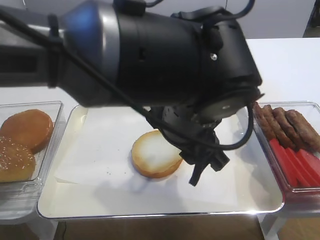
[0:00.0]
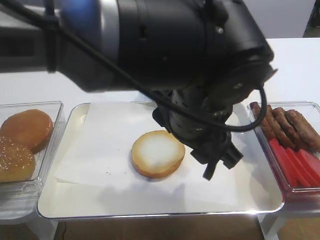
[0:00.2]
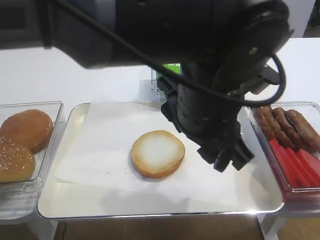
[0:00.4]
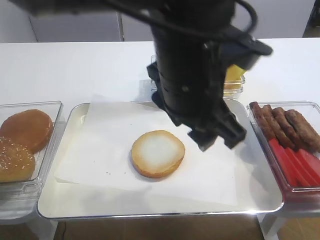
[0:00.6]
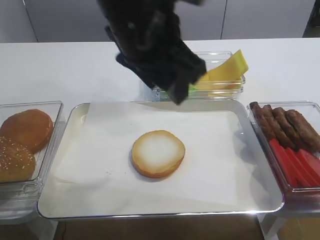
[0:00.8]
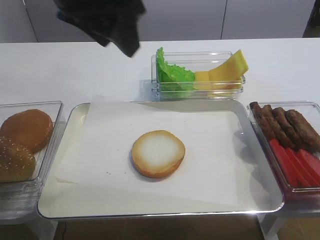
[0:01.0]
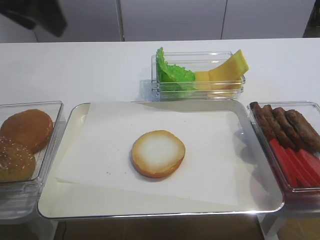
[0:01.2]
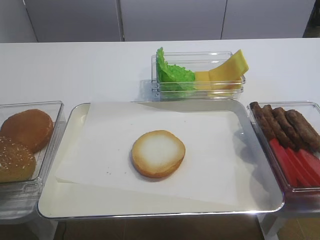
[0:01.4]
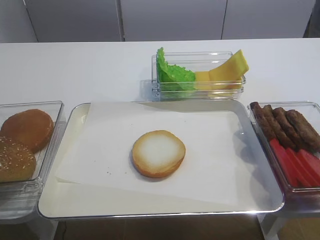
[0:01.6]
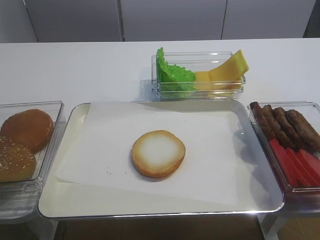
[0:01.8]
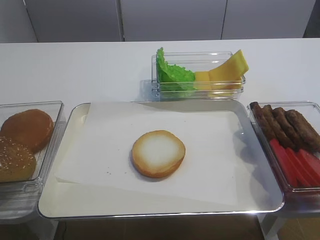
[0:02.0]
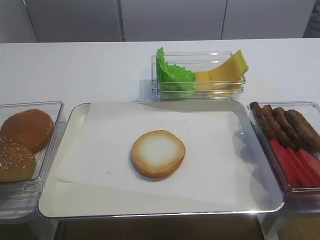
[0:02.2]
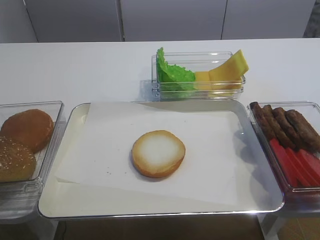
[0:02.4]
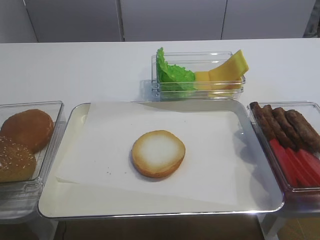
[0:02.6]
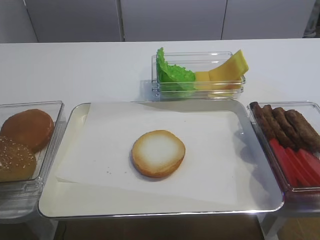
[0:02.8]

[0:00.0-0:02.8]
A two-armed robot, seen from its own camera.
0:00.0 to 0:01.4: The left gripper is displaced to the left by some 35 cm.
0:01.4 to 0:02.8: The left gripper goes some 15 cm downward and backward.

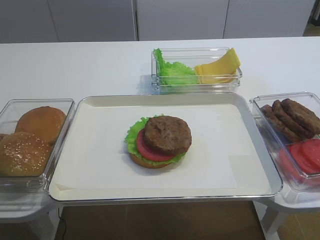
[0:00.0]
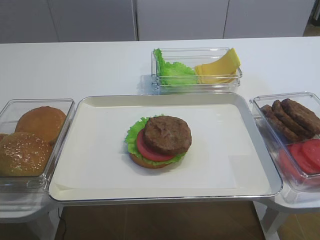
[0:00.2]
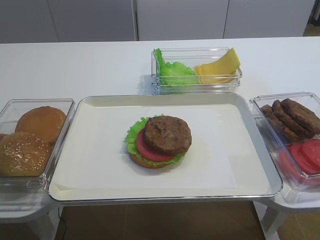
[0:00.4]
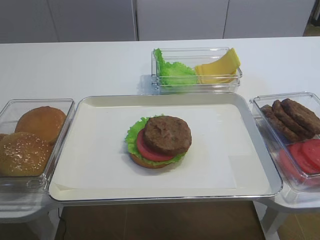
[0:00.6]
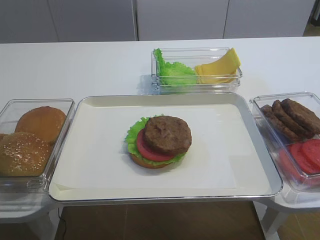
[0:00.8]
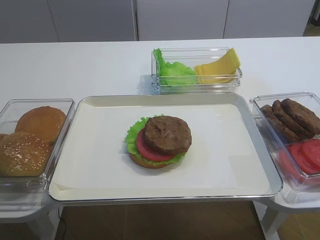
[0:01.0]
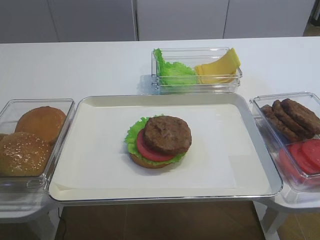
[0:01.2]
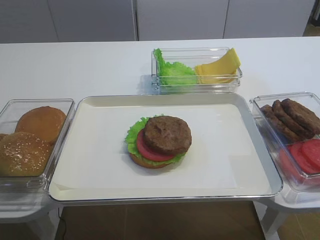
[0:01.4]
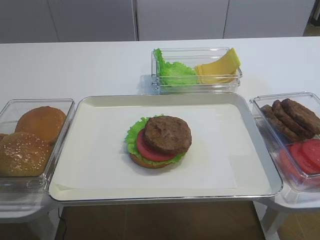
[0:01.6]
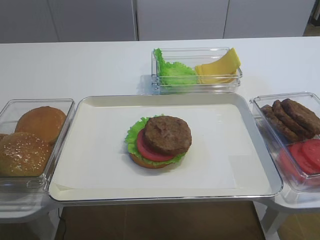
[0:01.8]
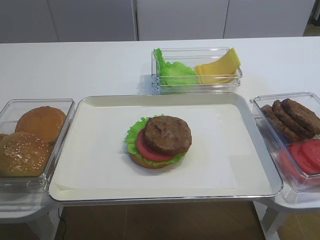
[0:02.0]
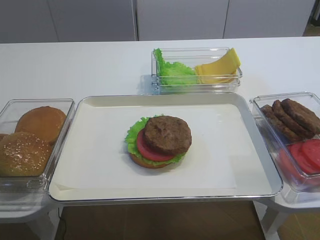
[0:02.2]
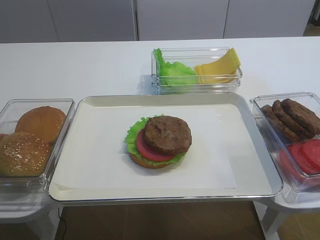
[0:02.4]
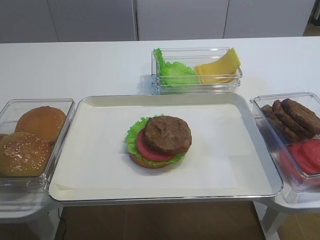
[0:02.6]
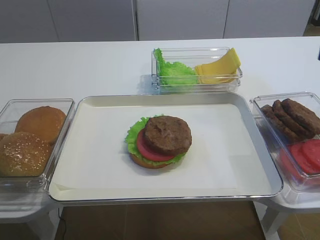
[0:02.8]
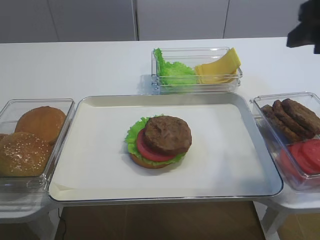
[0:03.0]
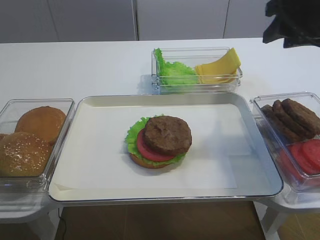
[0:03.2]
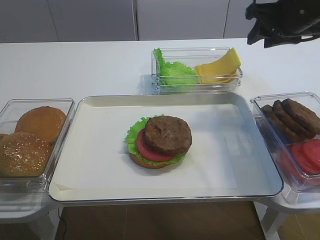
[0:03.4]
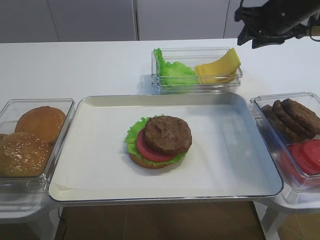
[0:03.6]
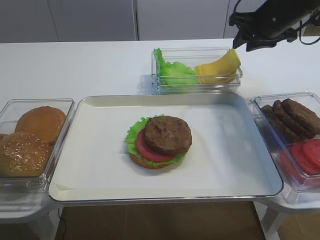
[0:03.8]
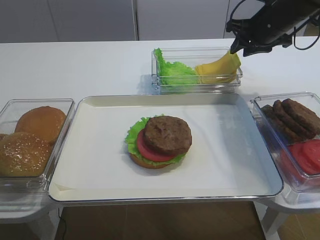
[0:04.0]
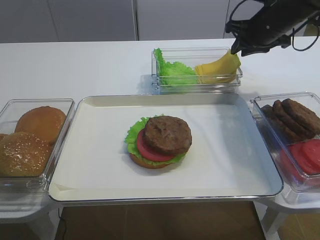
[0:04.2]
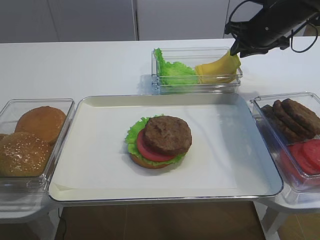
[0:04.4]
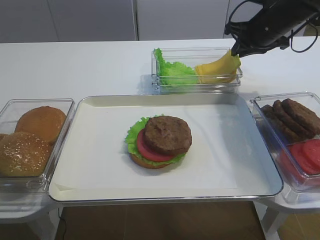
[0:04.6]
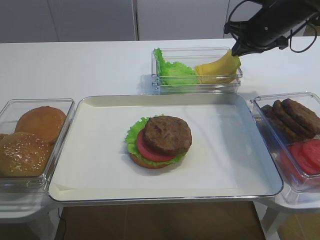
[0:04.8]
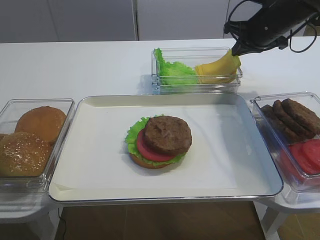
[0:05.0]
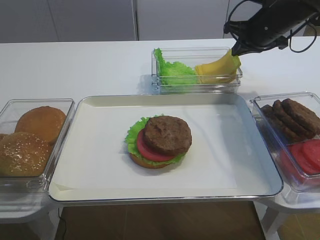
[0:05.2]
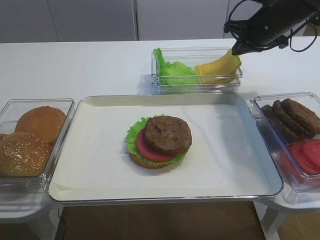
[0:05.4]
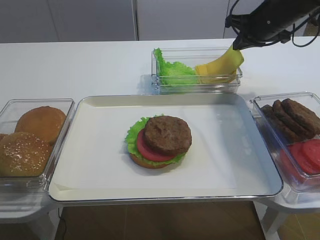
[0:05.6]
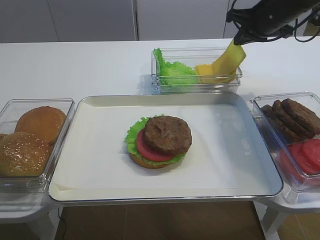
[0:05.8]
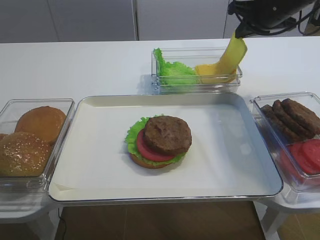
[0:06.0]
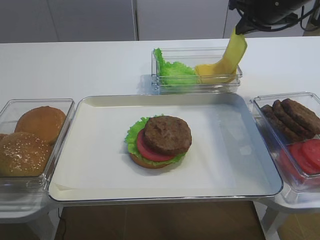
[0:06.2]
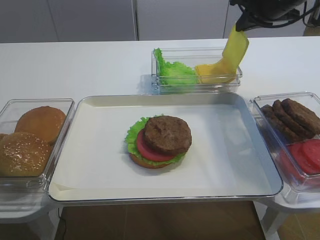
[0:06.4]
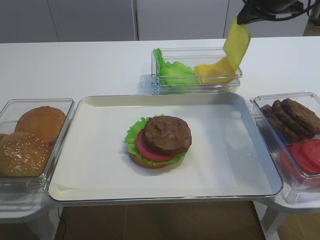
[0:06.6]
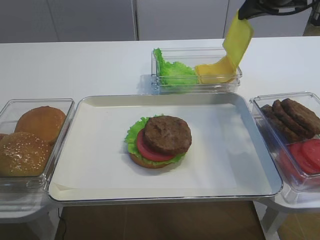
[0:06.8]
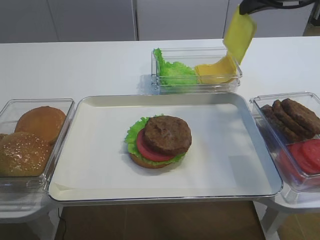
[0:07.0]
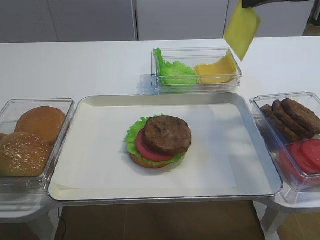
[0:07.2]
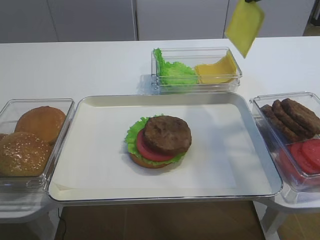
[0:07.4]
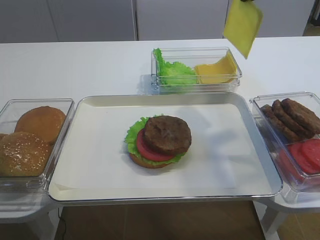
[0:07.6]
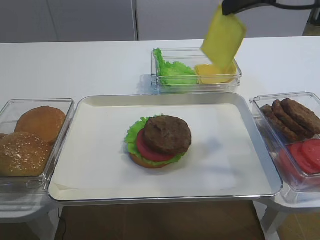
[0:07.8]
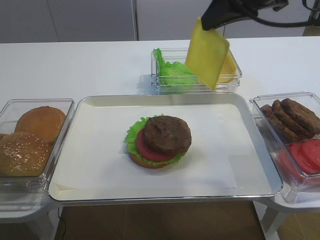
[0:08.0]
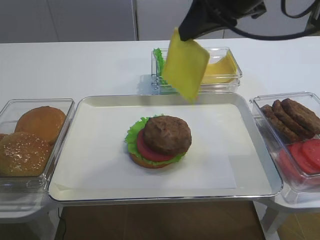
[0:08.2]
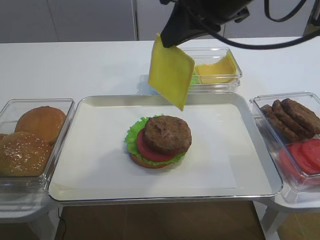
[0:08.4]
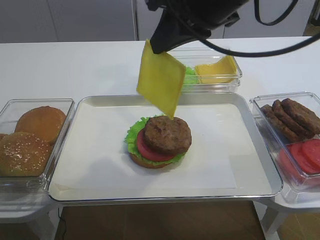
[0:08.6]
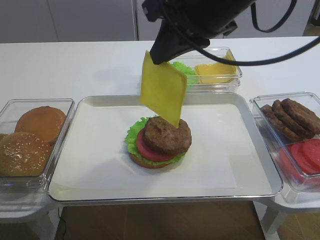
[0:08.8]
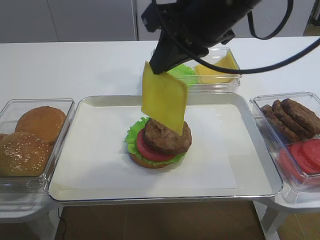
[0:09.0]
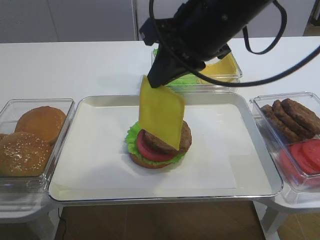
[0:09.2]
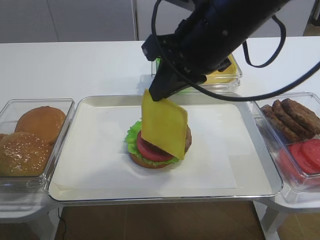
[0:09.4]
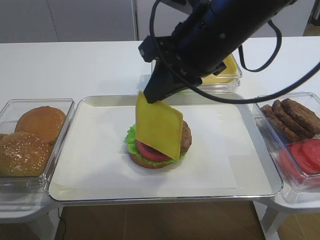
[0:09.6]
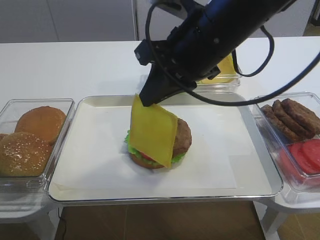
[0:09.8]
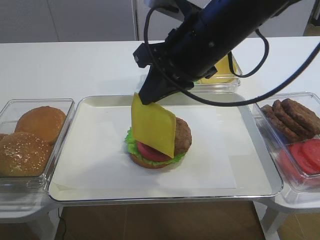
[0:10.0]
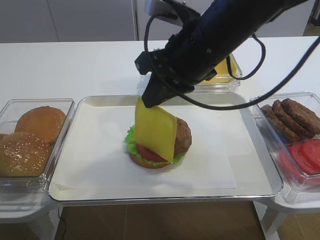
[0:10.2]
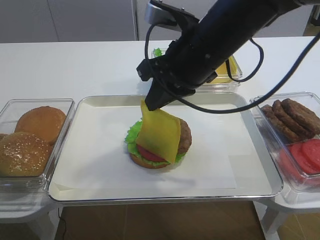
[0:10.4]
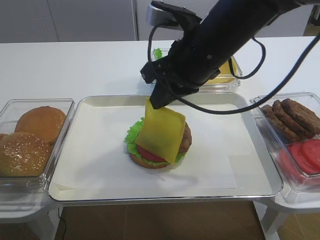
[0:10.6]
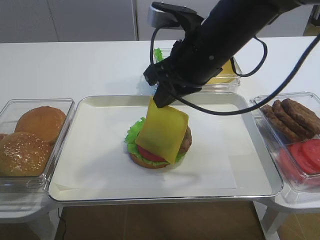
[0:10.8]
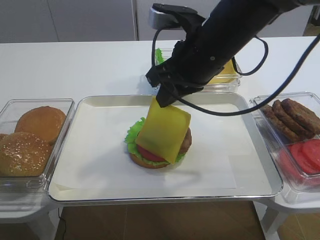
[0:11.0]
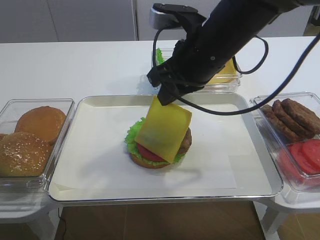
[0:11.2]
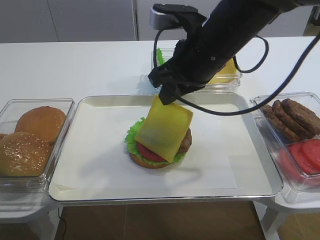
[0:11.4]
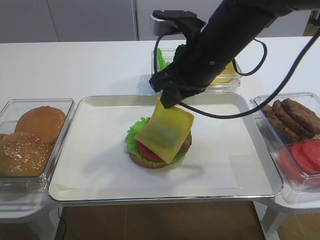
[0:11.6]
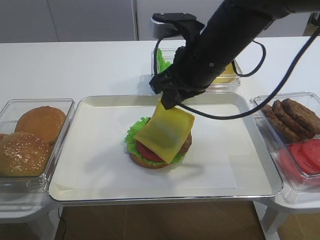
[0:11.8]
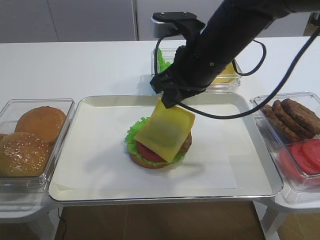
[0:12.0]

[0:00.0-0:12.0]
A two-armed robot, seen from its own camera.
Step, 0:00.0 to 0:06.8: Pick up the cheese slice with the right gripper.
0:01.6 to 0:03.0: The right gripper moves forward, some 25 cm, and opens its fingers.
0:03.0 to 0:04.4: The right gripper goes approximately 20 cm forward, and closes up.
0:04.4 to 0:06.0: The right gripper closes its fingers.
0:06.0 to 0:07.6: The right gripper heads upward and backward, covering about 15 cm.
0:07.6 to 0:09.0: The right gripper goes some 15 cm to the left and backward.
0:09.0 to 0:10.4: The right gripper heads downward, covering about 5 cm.
0:10.4 to 0:12.0: The grippers stay close to where they were, moving slightly.

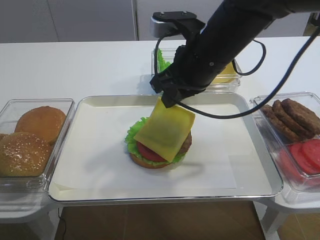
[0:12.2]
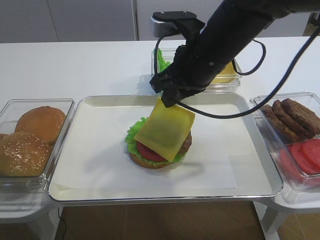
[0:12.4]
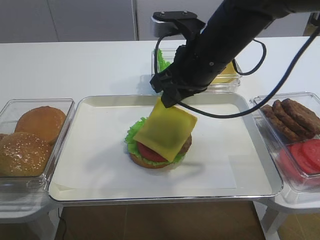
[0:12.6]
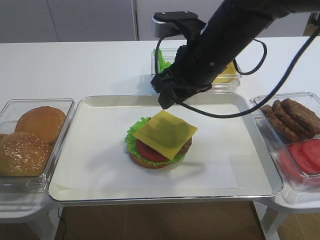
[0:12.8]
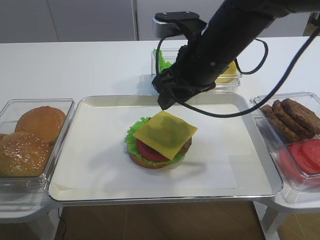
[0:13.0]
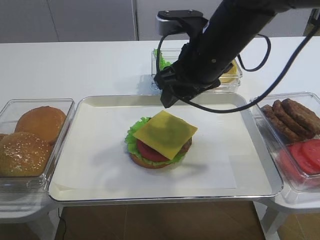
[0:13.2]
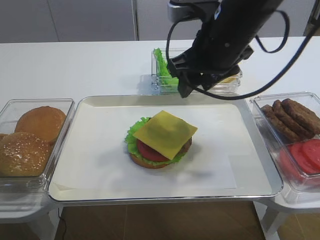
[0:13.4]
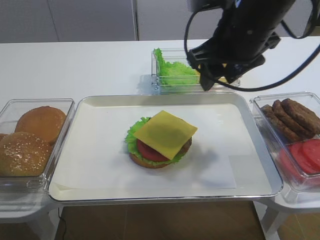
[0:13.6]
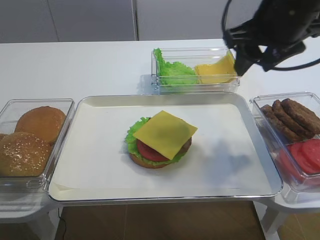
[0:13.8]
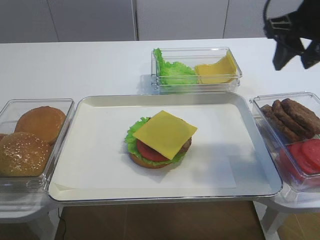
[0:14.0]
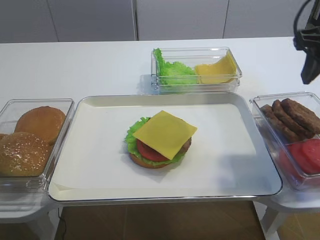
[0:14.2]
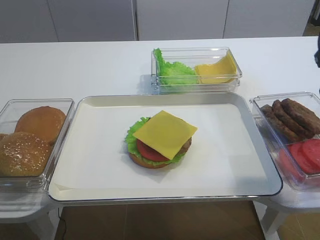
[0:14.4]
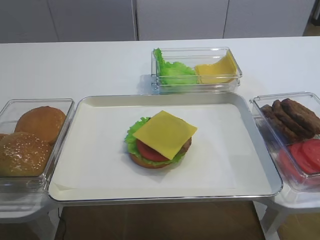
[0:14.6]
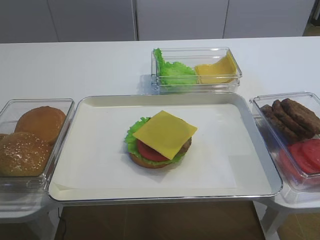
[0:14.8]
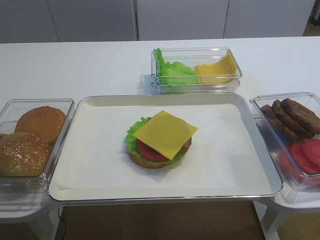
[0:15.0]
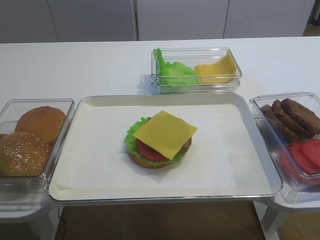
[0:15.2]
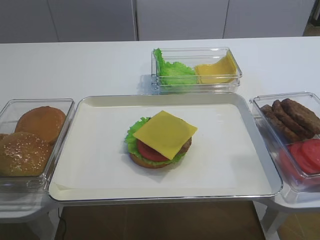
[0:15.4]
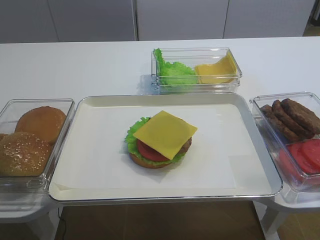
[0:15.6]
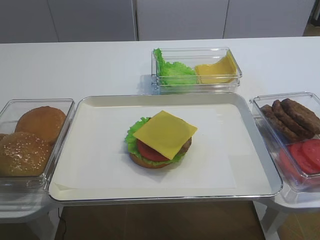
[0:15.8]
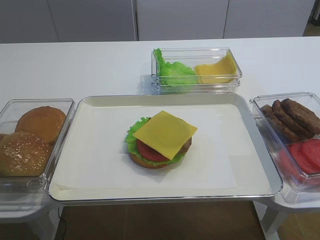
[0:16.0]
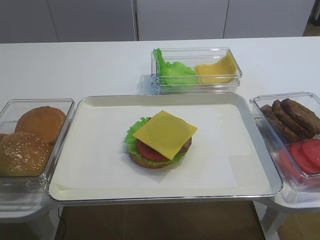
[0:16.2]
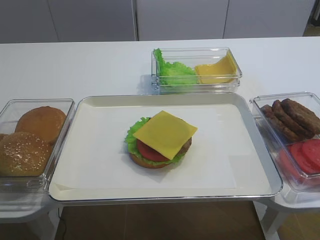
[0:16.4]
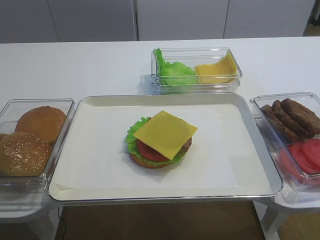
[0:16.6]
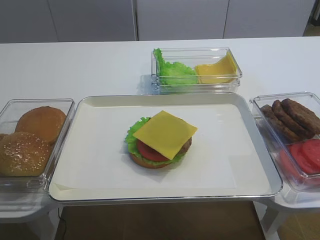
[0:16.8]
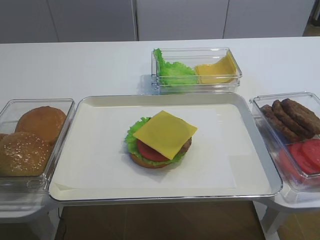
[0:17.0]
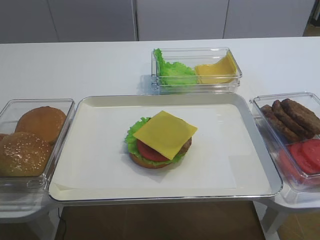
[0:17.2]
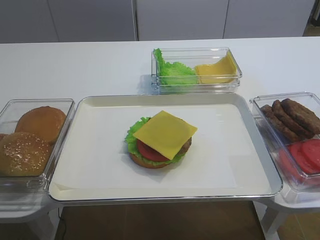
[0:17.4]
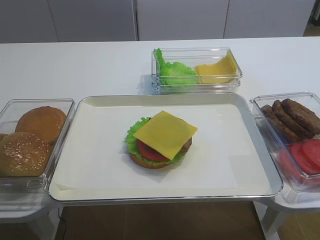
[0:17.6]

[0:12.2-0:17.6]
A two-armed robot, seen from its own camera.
0:12.2 to 0:13.6: The right gripper changes place by roughly 5 cm, and opens its fingers.
0:13.6 to 0:15.0: The right gripper goes approximately 25 cm backward and to the right.
0:16.2 to 0:17.6: Both grippers stay about where they are.
